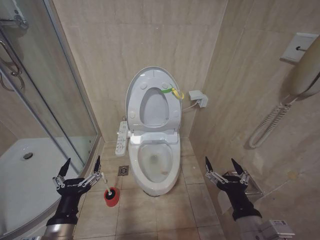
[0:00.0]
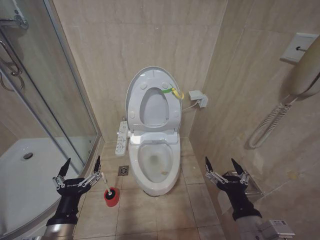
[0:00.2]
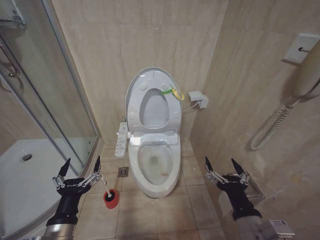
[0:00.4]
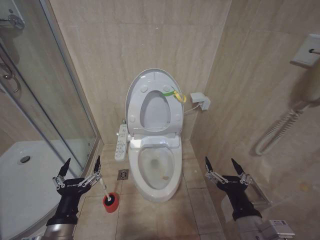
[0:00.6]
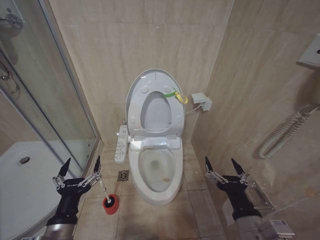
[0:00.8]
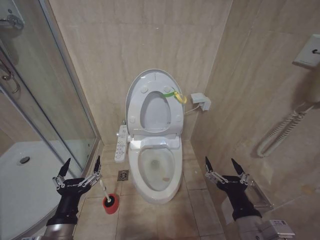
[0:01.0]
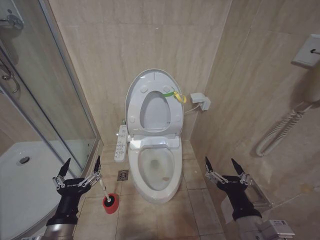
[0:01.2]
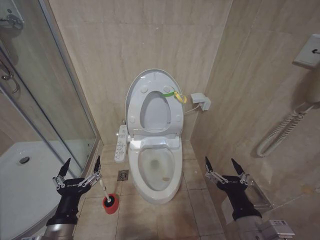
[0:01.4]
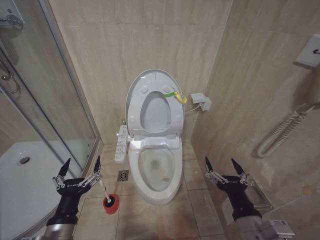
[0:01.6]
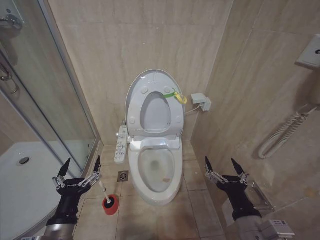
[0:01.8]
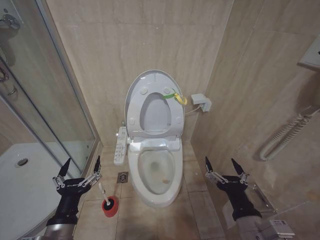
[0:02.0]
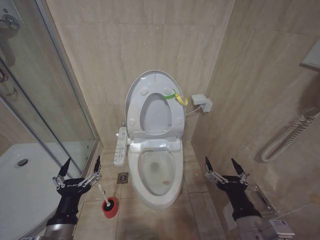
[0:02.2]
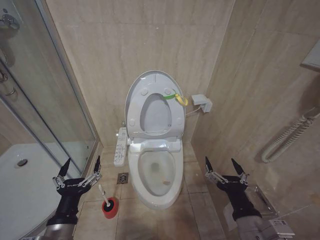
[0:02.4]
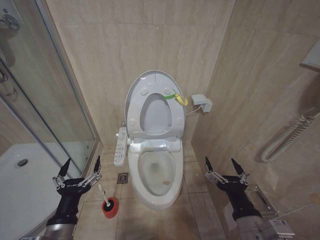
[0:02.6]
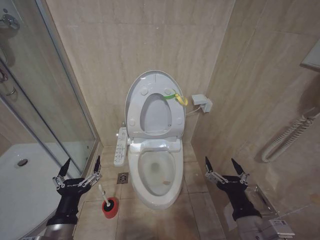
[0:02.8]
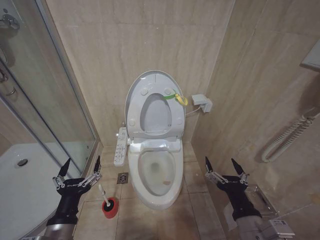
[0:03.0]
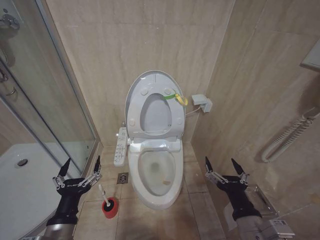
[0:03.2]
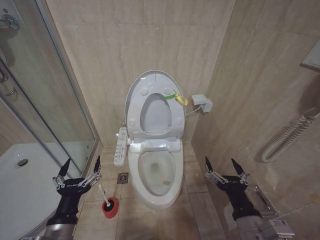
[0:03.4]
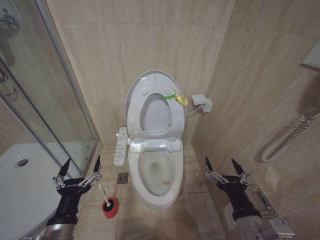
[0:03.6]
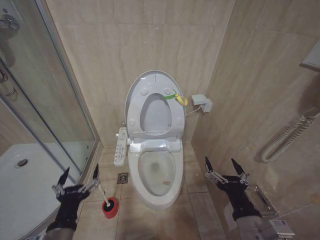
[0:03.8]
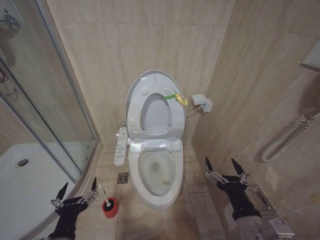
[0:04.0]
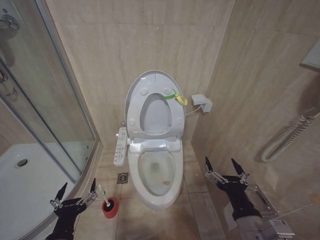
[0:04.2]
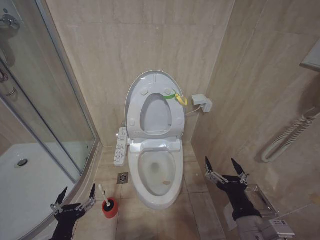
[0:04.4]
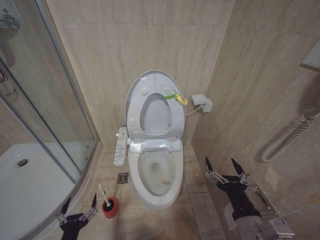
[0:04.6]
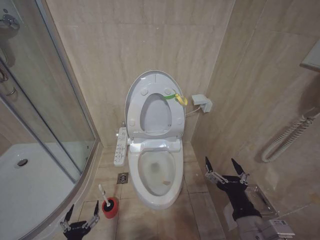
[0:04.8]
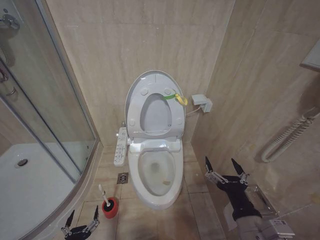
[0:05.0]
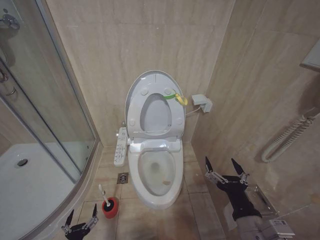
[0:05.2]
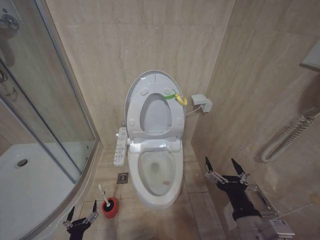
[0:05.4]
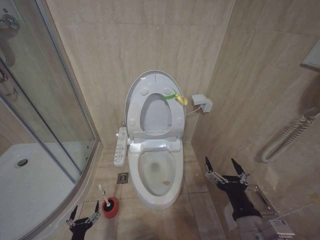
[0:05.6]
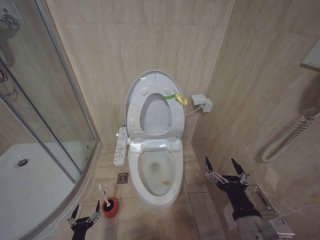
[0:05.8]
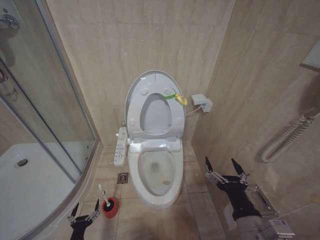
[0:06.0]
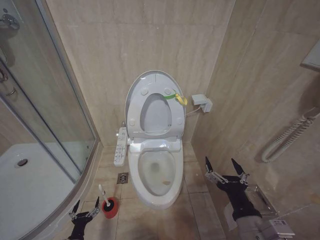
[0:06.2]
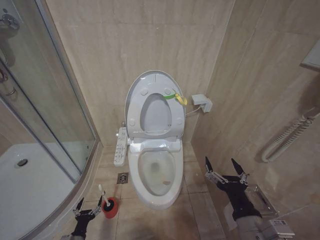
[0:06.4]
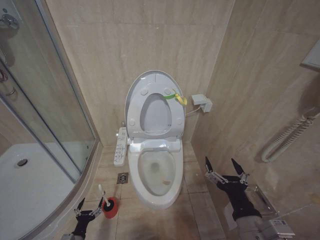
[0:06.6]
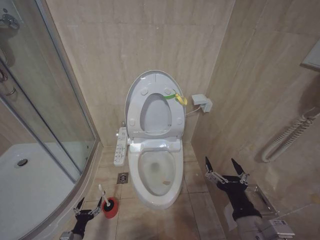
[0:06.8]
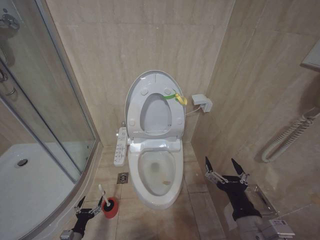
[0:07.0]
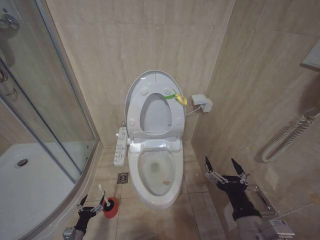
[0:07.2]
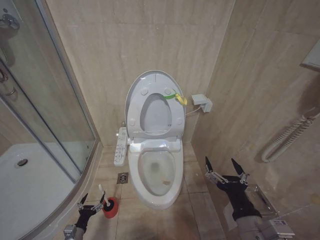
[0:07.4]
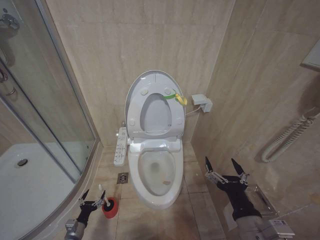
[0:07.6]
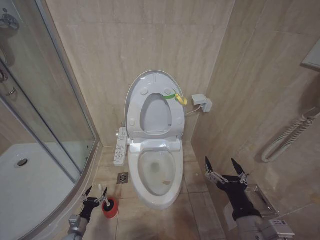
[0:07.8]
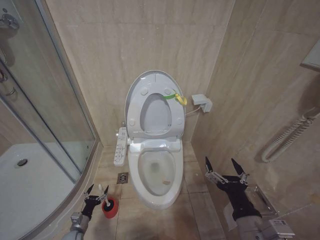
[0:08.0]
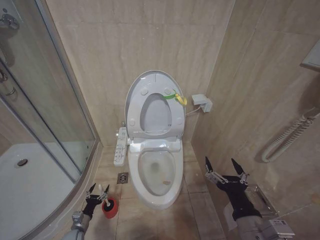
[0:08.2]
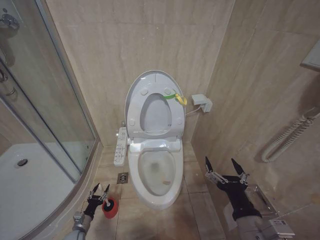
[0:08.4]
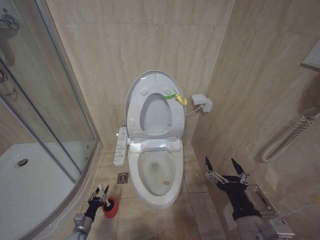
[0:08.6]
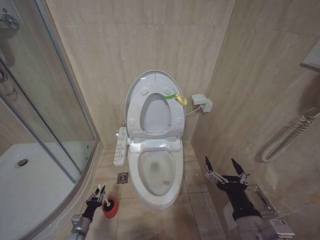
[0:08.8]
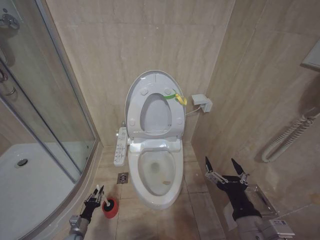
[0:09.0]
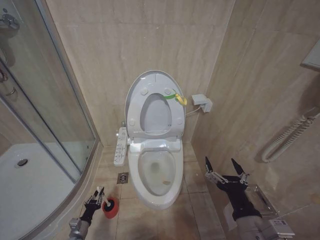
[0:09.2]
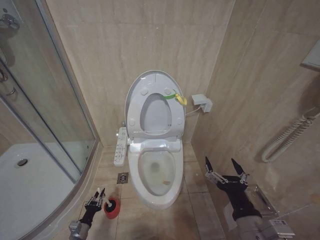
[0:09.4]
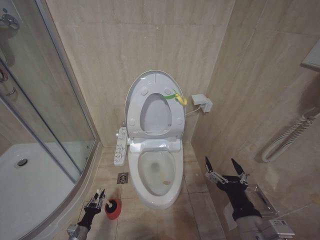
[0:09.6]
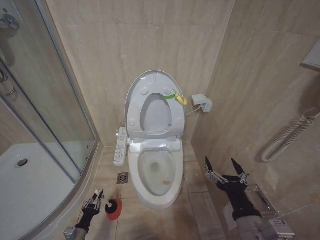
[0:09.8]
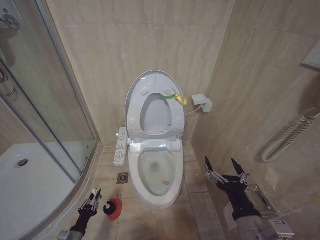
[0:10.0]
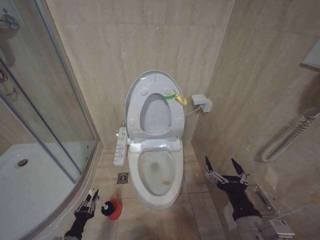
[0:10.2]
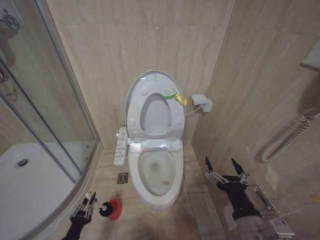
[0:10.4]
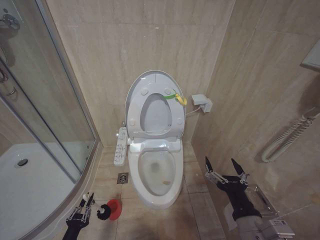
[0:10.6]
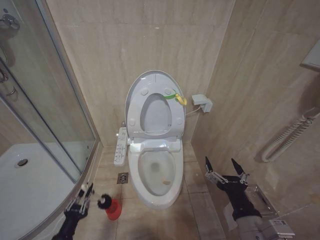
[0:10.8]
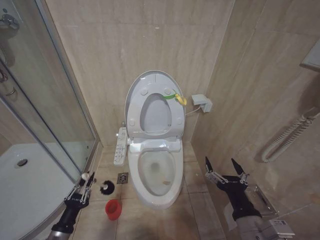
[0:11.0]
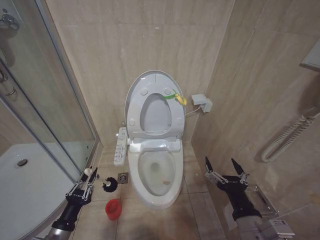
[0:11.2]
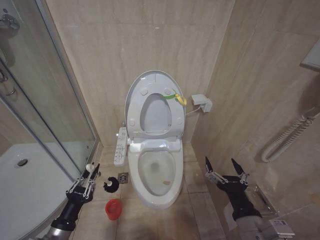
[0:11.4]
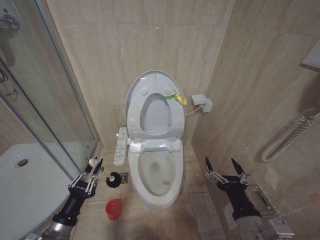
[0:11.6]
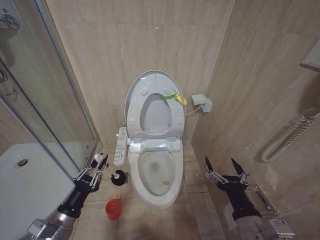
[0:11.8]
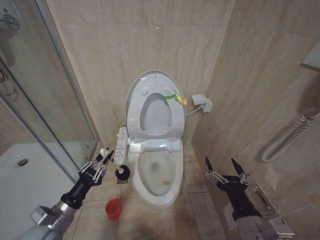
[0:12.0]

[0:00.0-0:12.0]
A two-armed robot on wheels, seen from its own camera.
Task of the whole recording: Open the toilet lid, clean the toilet bowl with a toilet brush, close the toilet lid, and flush.
0:00.0 to 0:03.0: Both grippers stay about where they are.
0:03.0 to 0:04.4: The left gripper changes place by about 5 cm.
0:04.4 to 0:06.0: The left gripper heads downward, covering about 25 cm.
0:06.0 to 0:07.6: The left gripper goes roughly 10 cm forward and to the left.
0:07.6 to 0:09.0: The left gripper closes up.
0:09.0 to 0:10.4: The left gripper travels backward and upward by about 15 cm.
0:10.4 to 0:12.0: The left gripper goes some 20 cm upward.

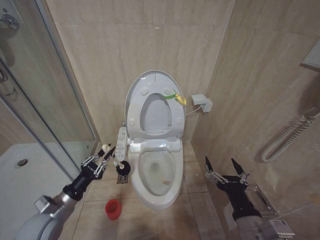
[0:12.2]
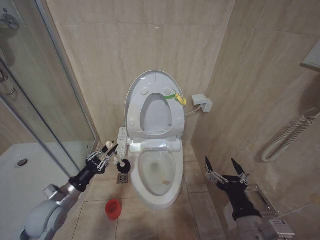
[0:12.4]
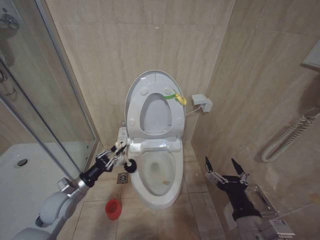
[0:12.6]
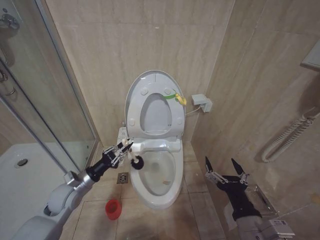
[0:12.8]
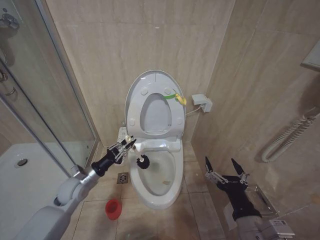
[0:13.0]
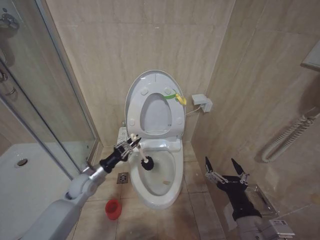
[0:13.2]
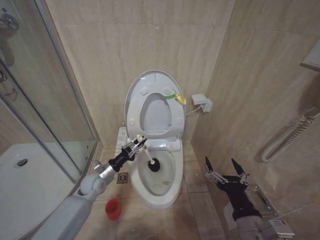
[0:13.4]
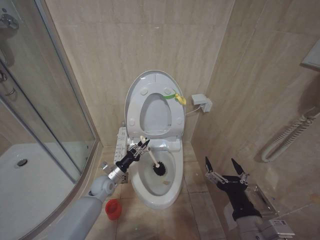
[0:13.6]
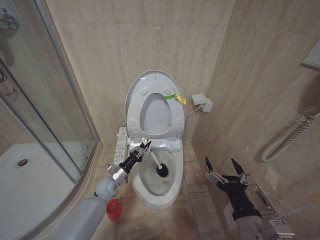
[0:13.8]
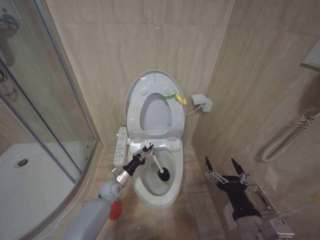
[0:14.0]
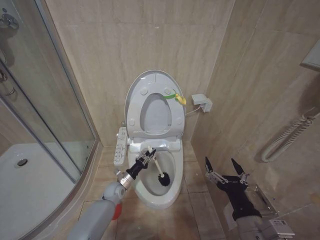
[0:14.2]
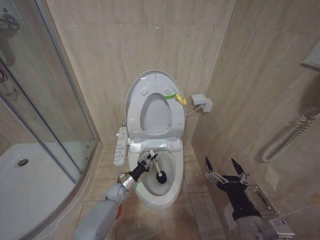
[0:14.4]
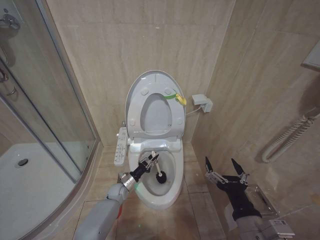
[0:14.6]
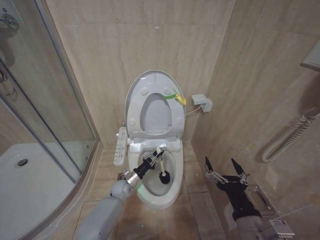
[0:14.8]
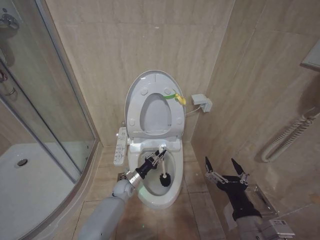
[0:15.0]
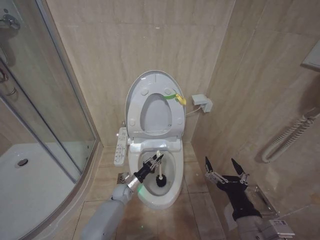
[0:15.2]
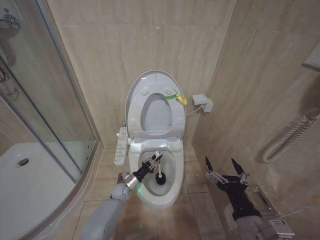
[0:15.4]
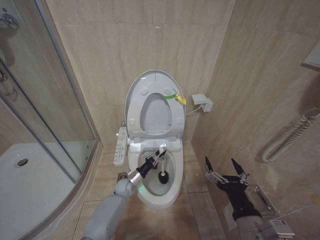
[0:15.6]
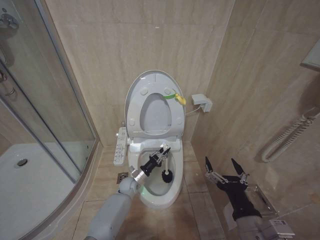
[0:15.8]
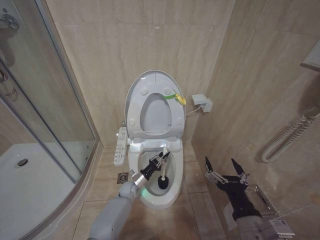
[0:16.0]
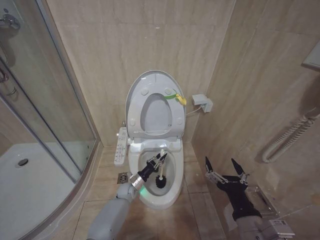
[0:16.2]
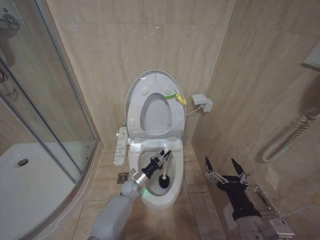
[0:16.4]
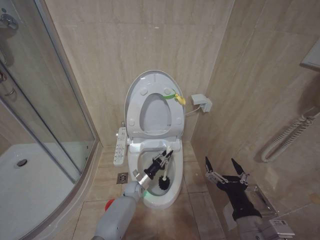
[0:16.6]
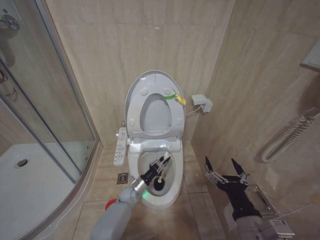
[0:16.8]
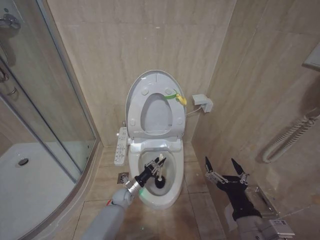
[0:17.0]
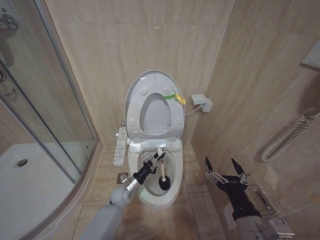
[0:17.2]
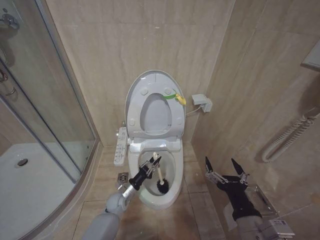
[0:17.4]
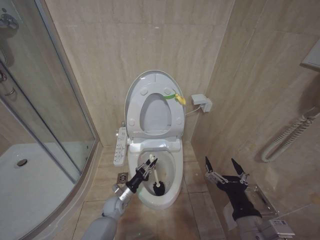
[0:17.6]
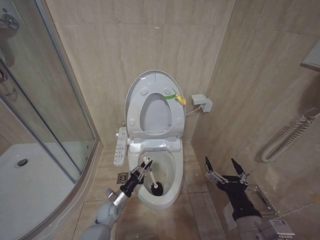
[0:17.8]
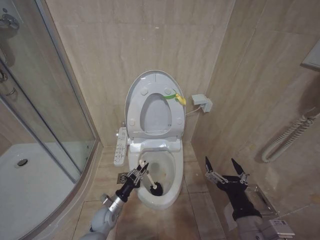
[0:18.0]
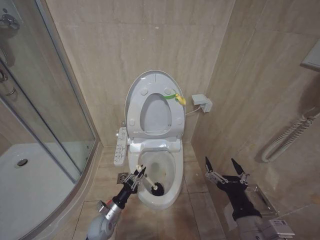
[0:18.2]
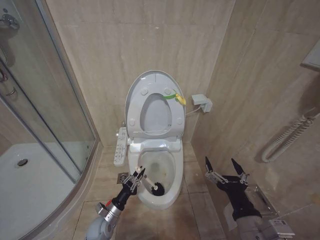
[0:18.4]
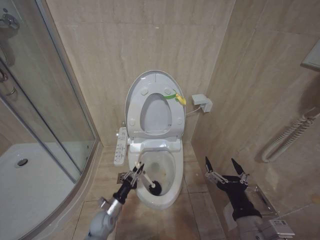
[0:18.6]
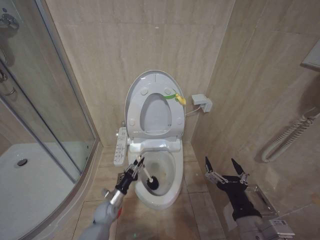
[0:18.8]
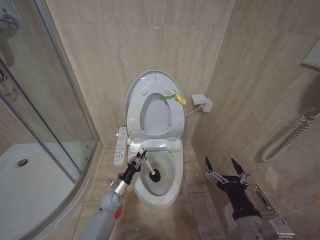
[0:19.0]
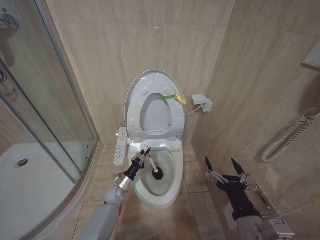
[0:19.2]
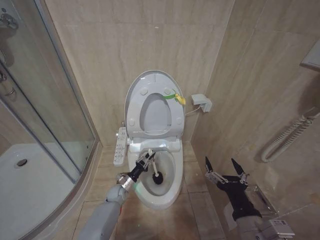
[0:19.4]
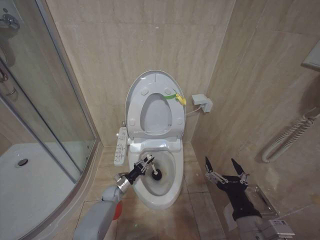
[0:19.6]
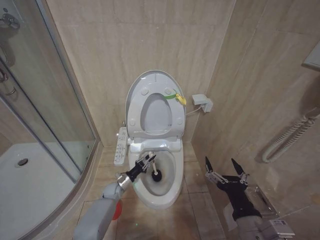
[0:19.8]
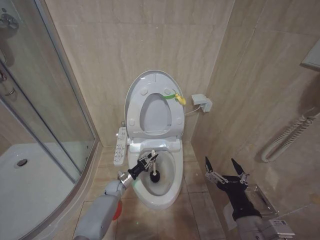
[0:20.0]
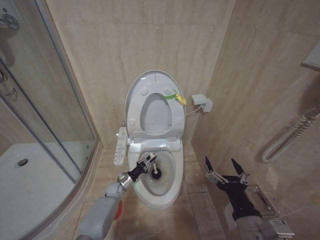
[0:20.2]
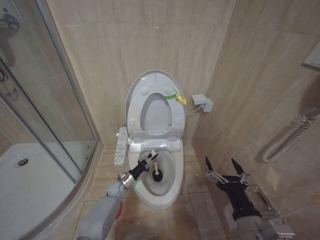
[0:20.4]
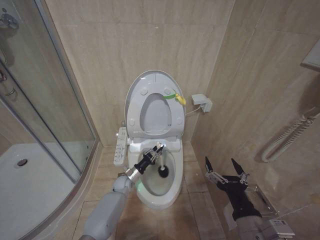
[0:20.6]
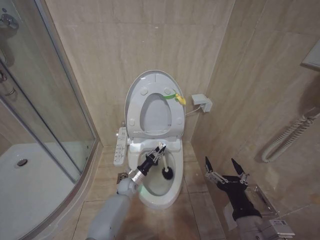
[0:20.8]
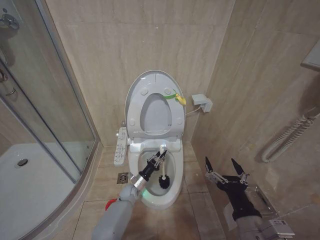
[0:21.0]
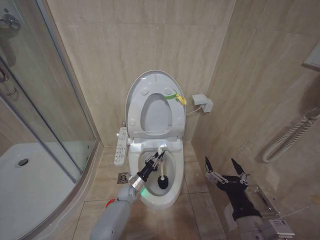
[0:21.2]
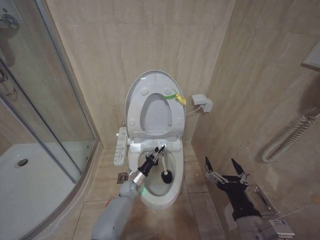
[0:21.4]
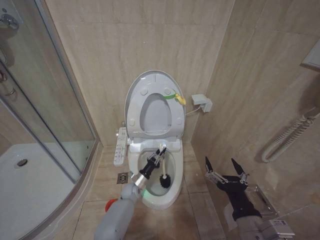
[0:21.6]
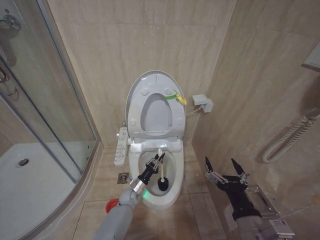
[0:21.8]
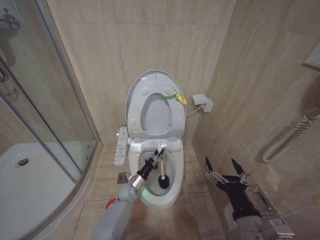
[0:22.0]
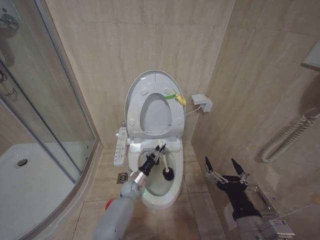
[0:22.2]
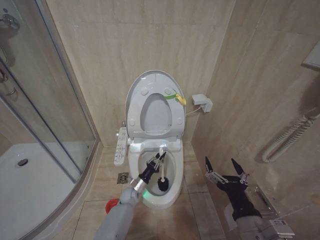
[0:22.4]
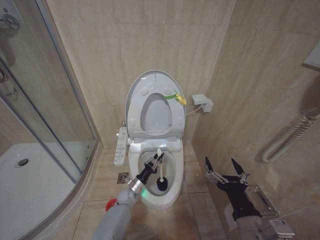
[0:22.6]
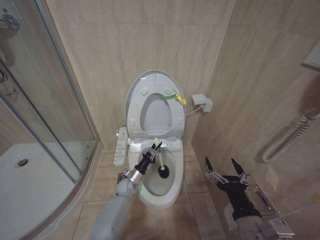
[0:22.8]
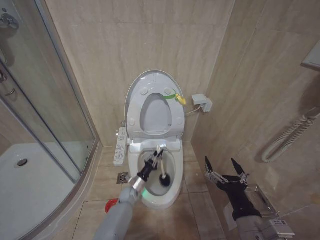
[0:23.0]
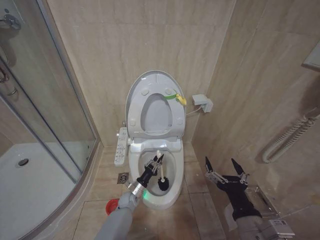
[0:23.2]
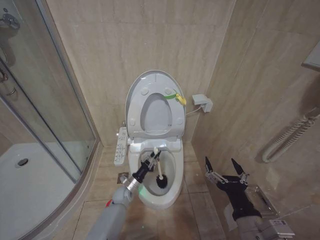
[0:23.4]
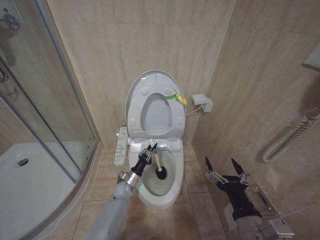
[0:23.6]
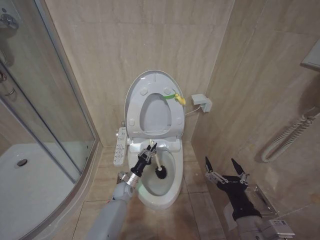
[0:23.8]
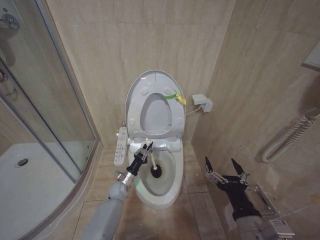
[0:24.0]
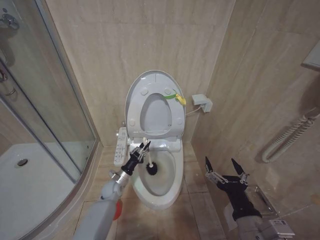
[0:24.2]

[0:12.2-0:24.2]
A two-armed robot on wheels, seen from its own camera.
Task of the whole recording: Open the toilet lid, clean the toilet bowl with a toilet brush, close the toilet lid, and flush.
0:12.2 to 0:13.8: The left gripper moves forward, downward and to the right, approximately 25 cm.
0:13.8 to 0:15.2: The left gripper travels downward and to the right by approximately 10 cm.
0:15.2 to 0:16.6: The left gripper goes roughly 5 cm to the right.
0:16.6 to 0:18.2: The left gripper heads backward and to the left, covering approximately 20 cm.
0:18.2 to 0:19.8: The left gripper is displaced forward by about 15 cm.
0:19.8 to 0:21.2: The left gripper heads to the right, covering some 10 cm.
0:22.6 to 0:24.2: The left gripper shifts roughly 10 cm upward and to the left.
